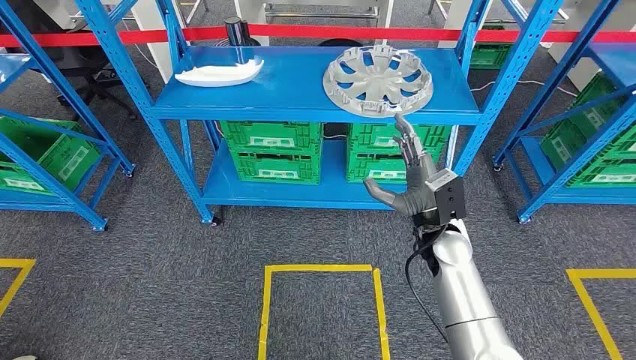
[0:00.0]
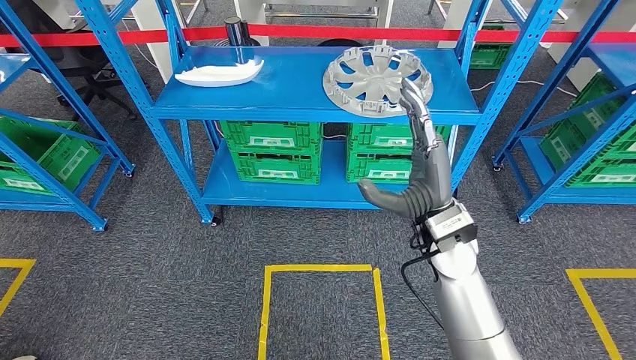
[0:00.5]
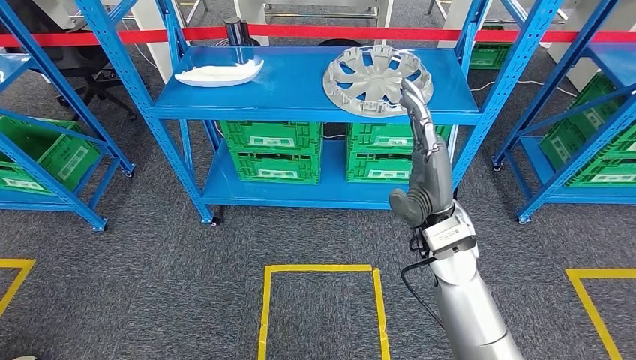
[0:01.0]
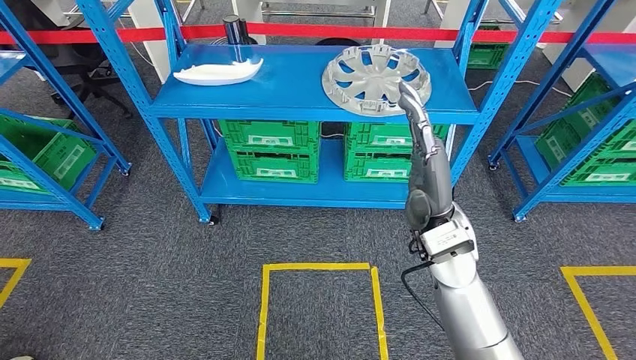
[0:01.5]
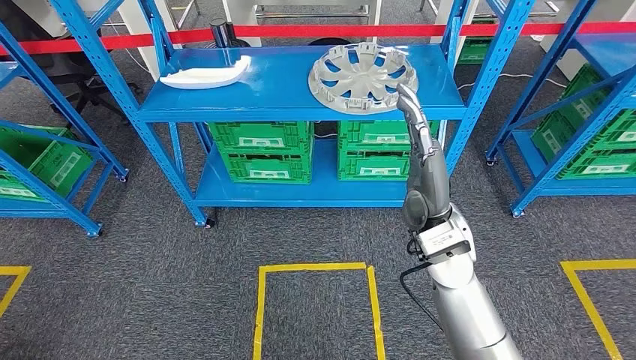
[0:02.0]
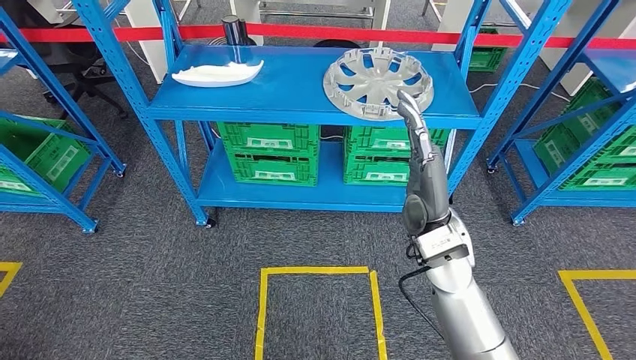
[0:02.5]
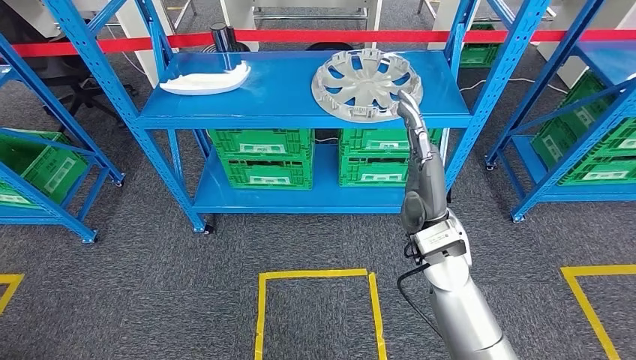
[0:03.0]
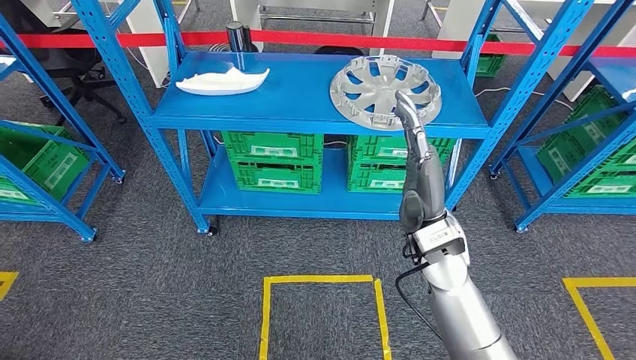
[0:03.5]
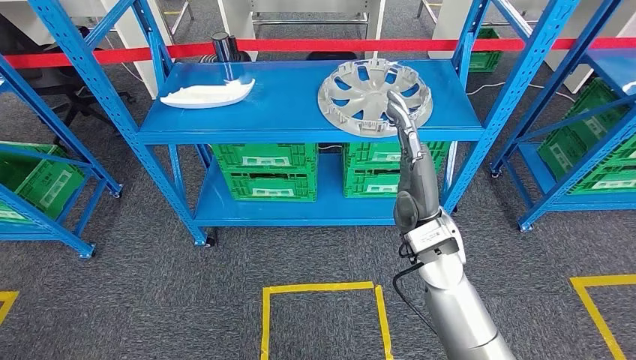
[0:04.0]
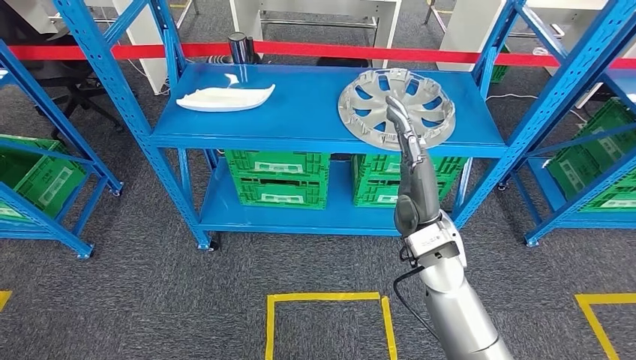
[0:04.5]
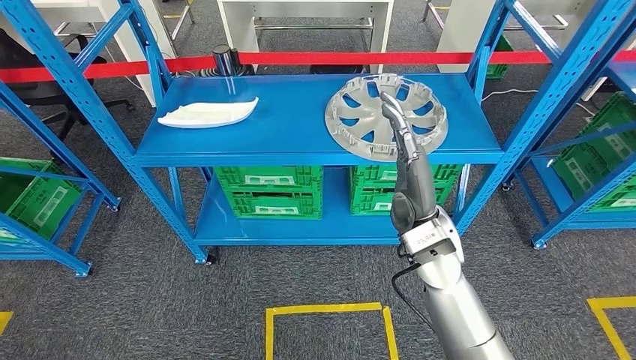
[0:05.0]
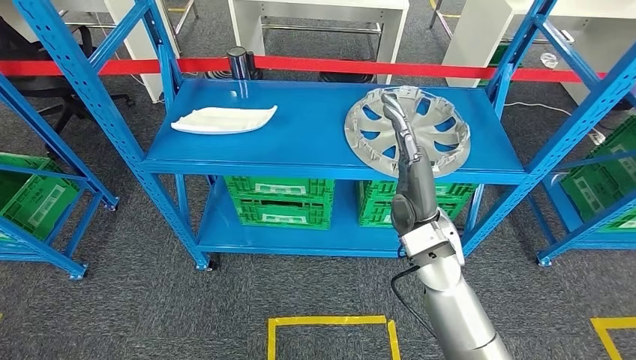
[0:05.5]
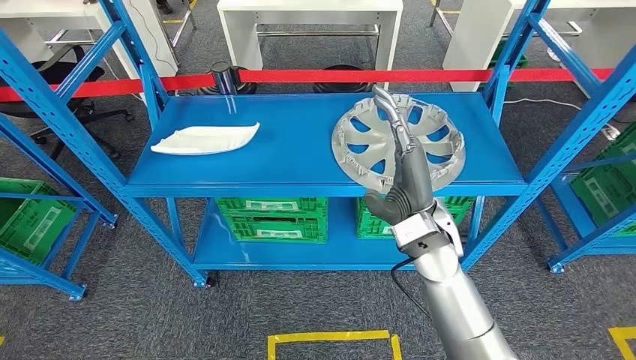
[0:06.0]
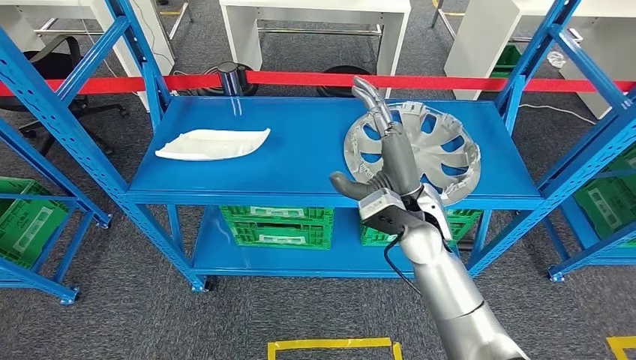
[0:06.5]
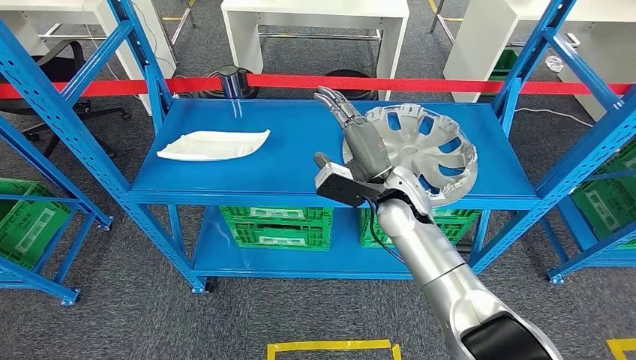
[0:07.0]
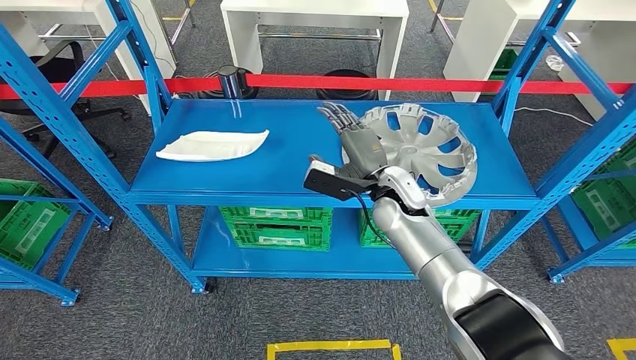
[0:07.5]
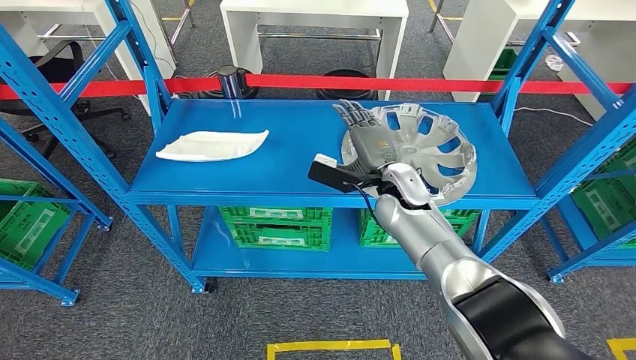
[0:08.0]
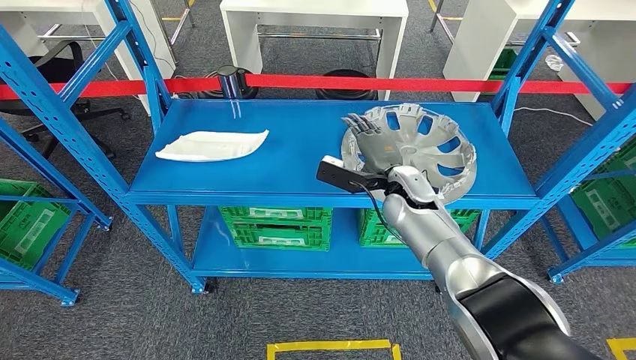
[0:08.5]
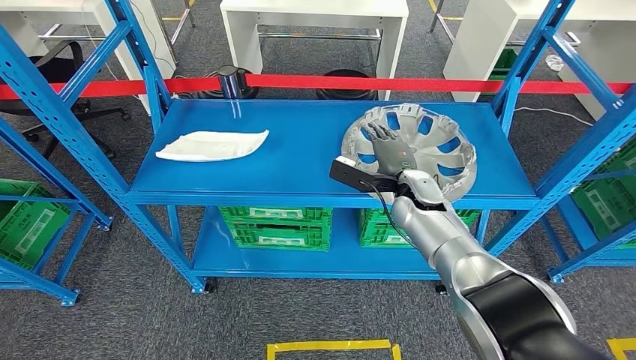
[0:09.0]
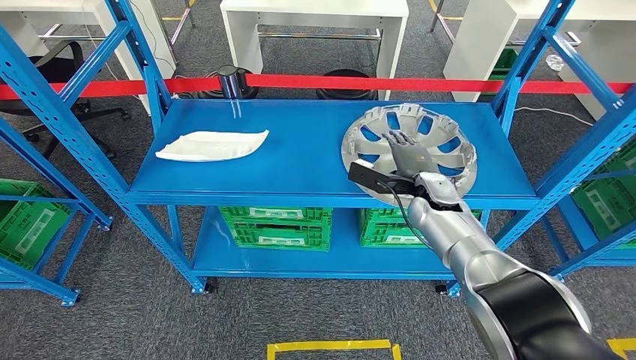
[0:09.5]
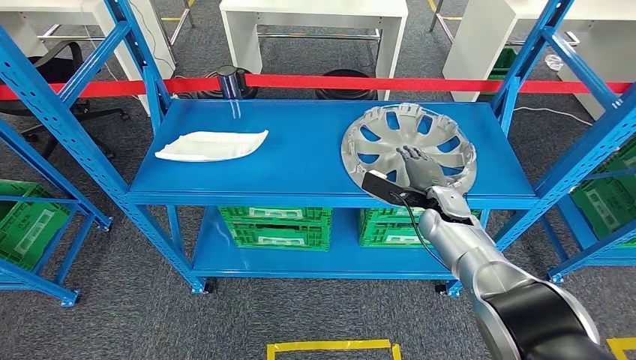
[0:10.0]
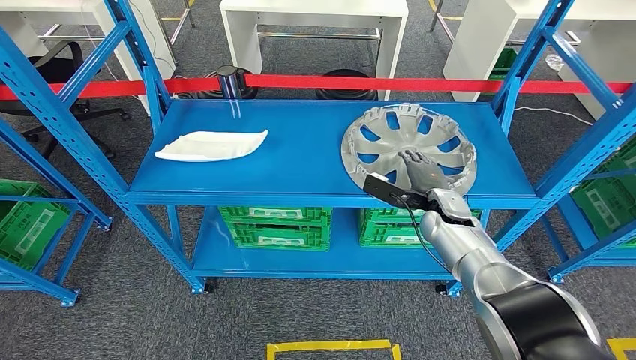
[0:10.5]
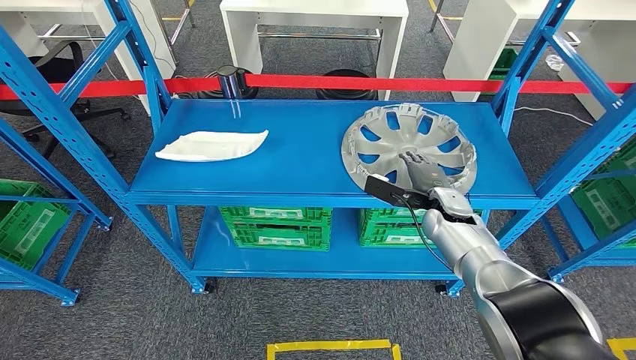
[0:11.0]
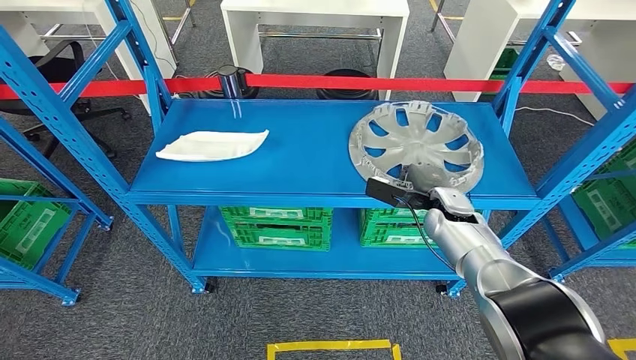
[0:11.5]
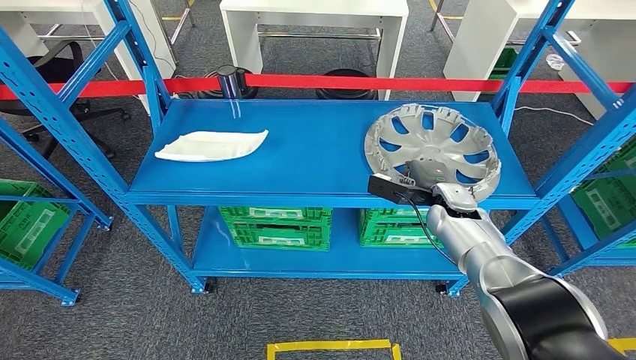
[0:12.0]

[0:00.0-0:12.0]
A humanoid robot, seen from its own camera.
0:08.0 to 0:10.0: The right hand shifts roughly 10 cm to the right and downward.
0:10.0 to 0:12.0: The hands move only a little.

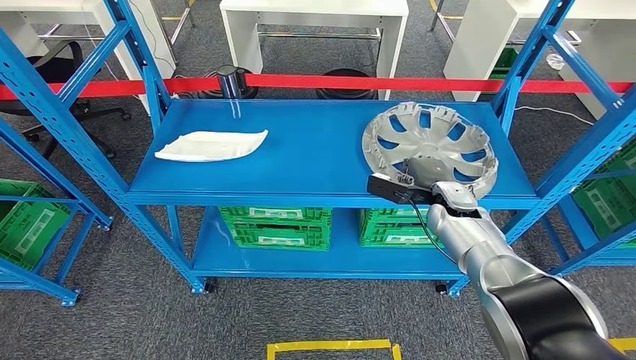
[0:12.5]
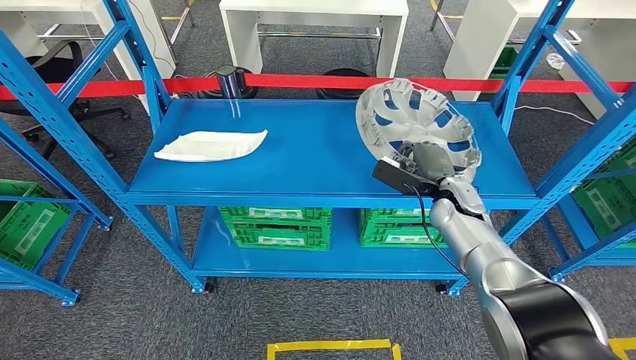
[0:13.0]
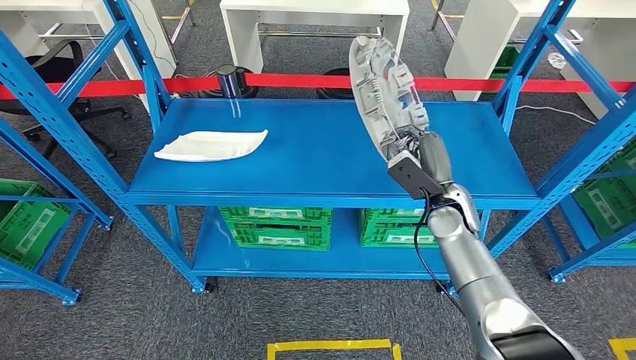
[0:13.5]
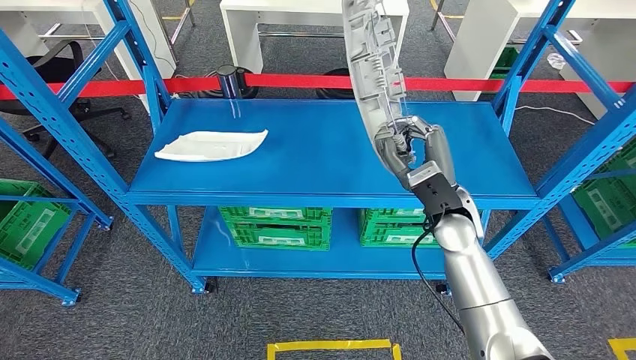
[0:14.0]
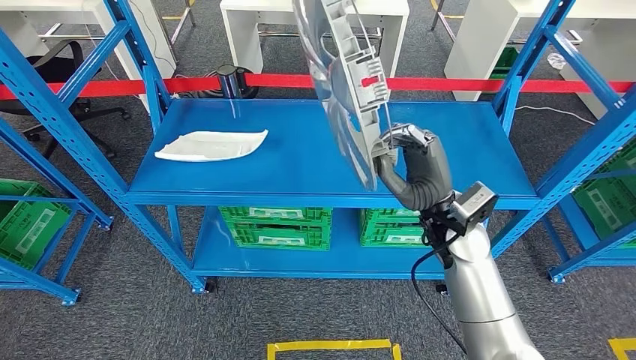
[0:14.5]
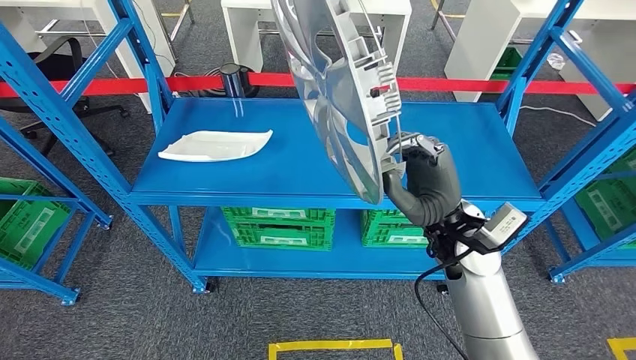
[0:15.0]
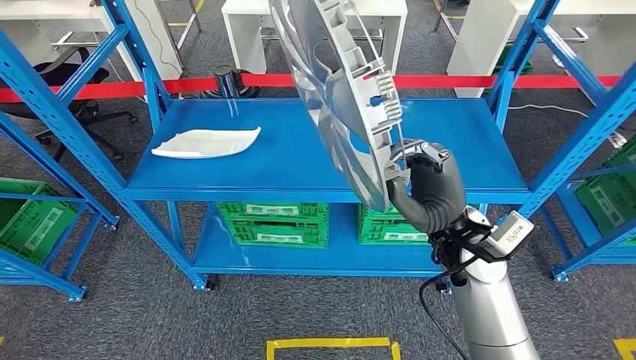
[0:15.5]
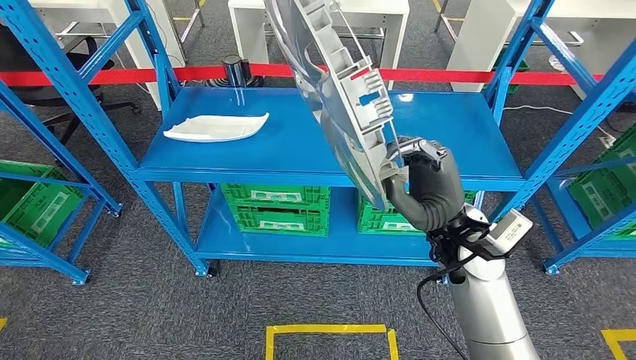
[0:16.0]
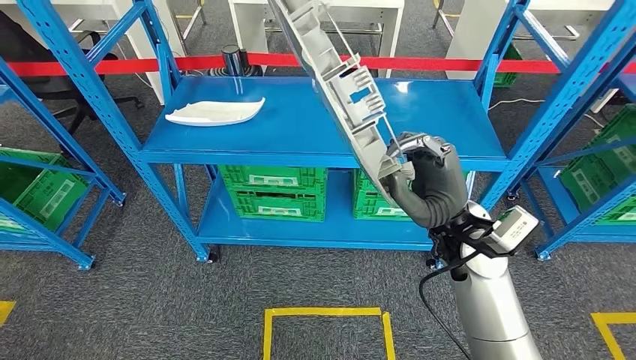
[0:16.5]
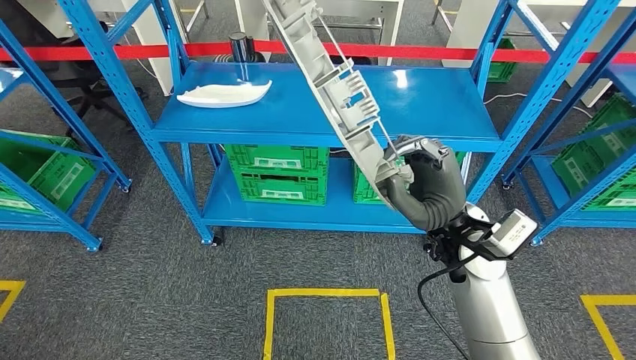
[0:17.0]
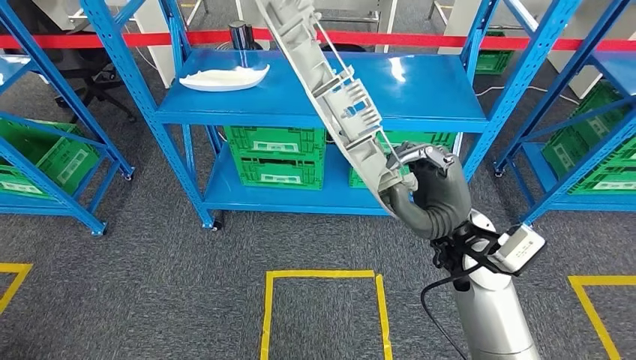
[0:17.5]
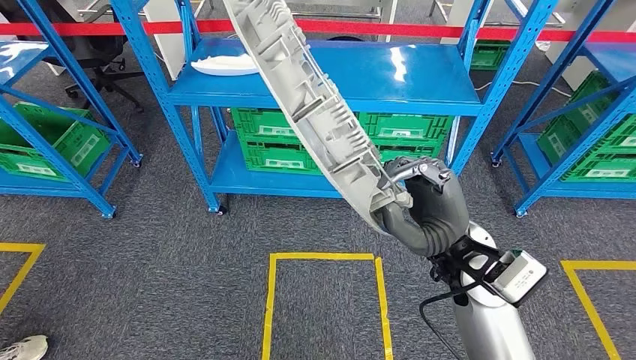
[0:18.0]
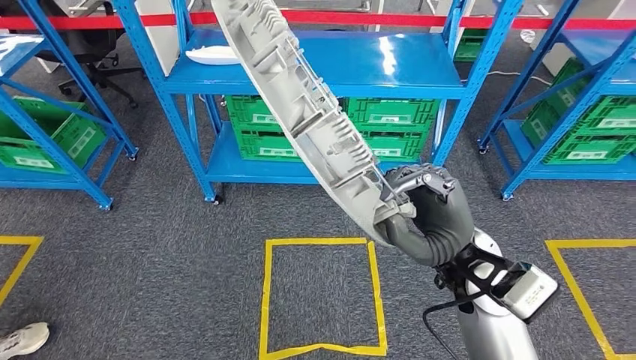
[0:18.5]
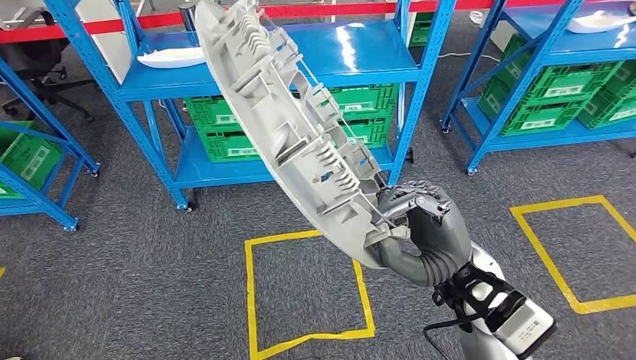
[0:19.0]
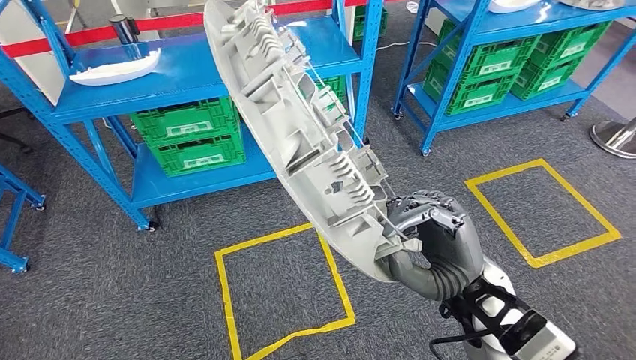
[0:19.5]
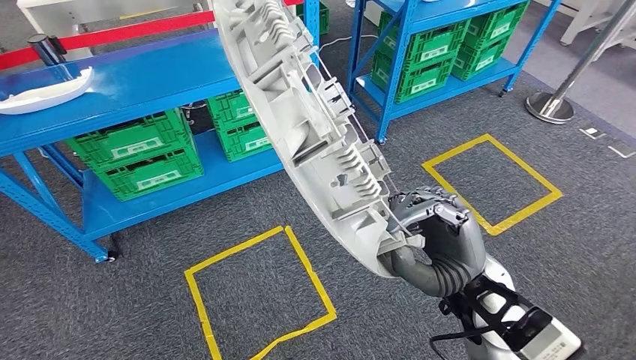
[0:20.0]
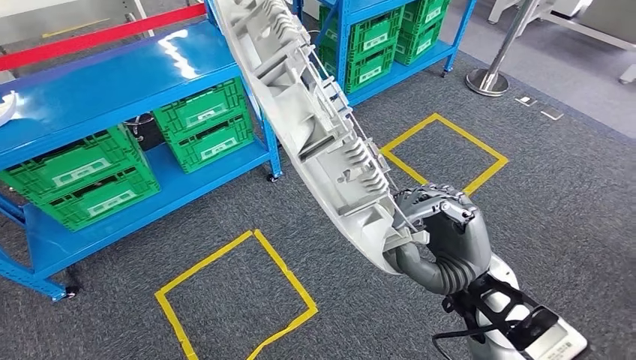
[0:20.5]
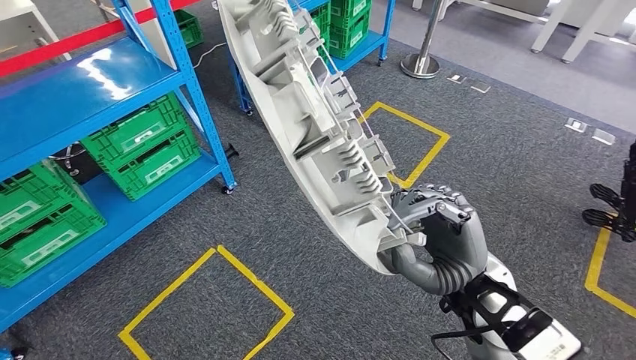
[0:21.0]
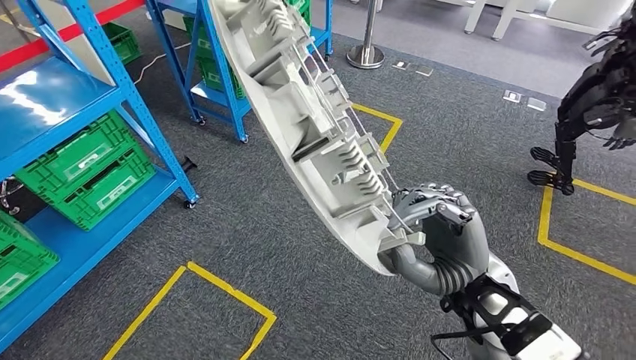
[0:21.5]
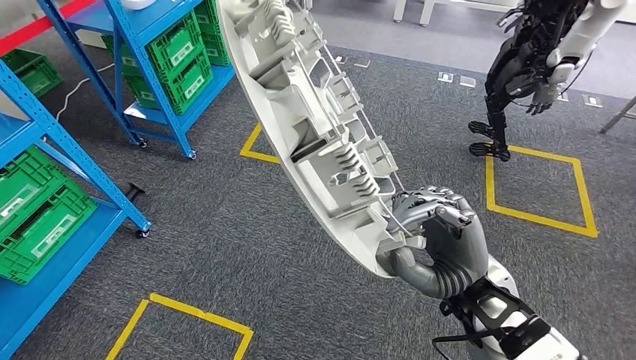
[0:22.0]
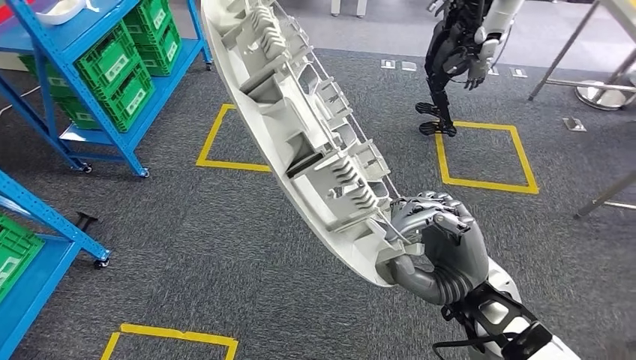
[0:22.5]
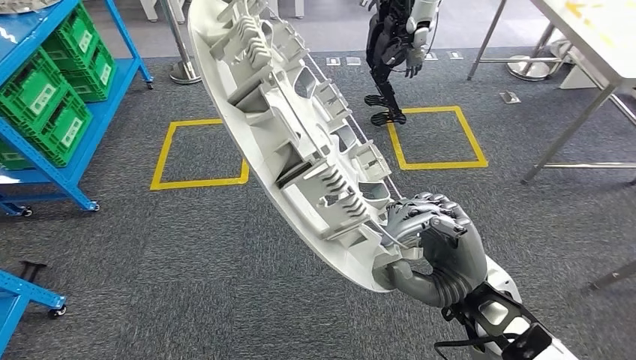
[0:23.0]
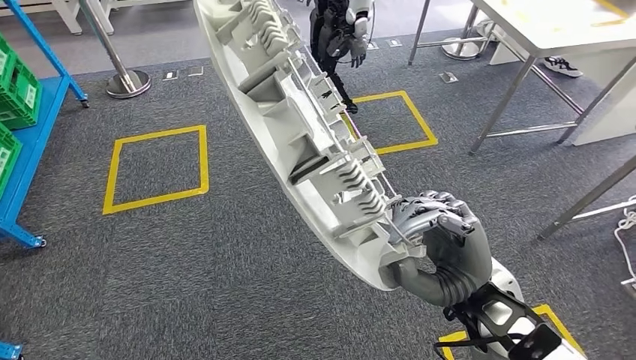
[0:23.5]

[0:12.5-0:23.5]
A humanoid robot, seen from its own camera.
Step, 0:12.5 to 0:15.0: Pick up the small component from the shelf.
0:12.5 to 0:14.5: The right hand shifts roughly 10 cm upward and backward.
